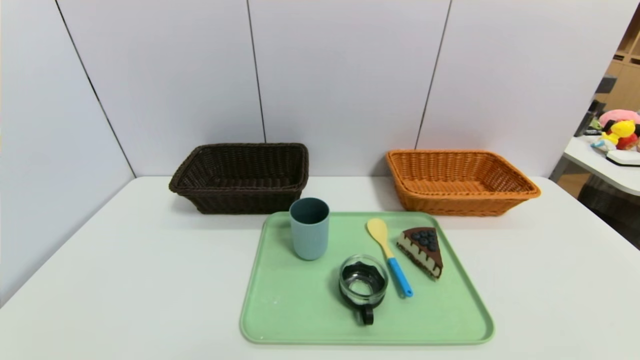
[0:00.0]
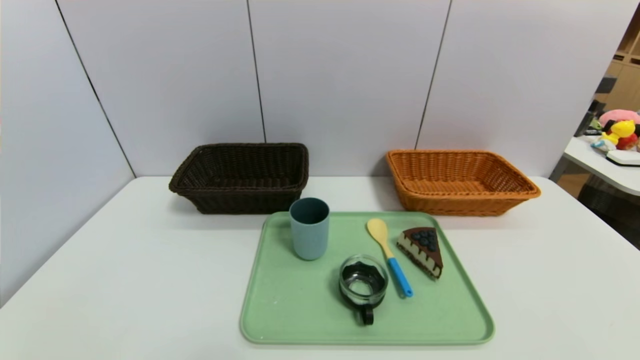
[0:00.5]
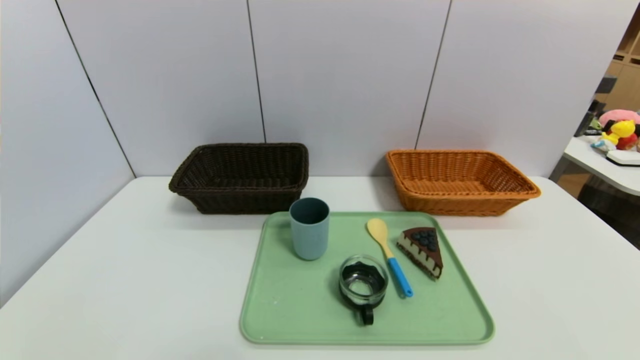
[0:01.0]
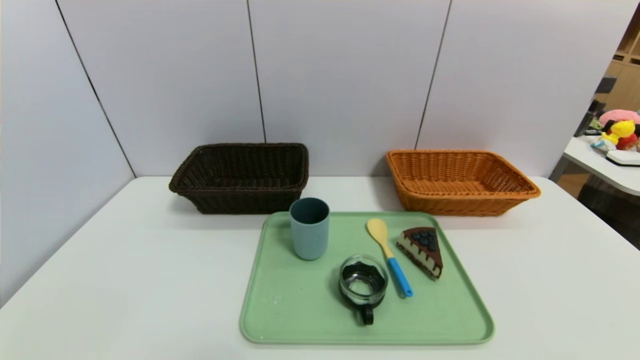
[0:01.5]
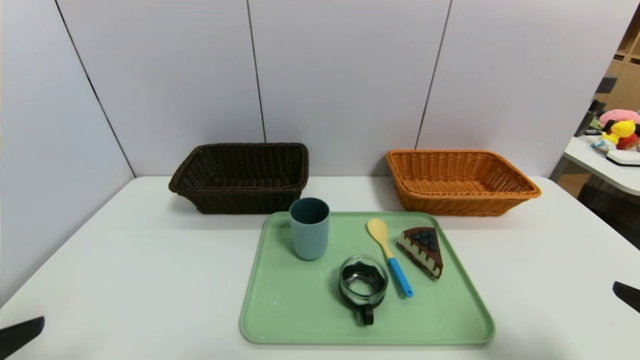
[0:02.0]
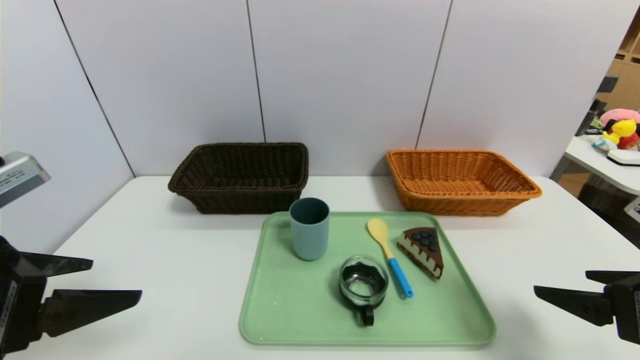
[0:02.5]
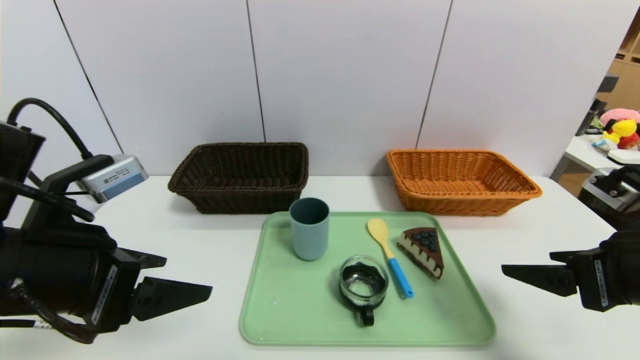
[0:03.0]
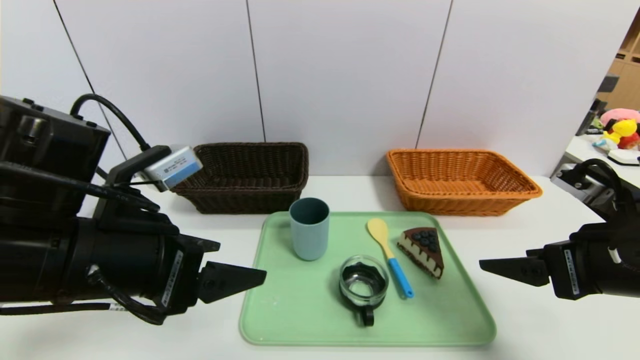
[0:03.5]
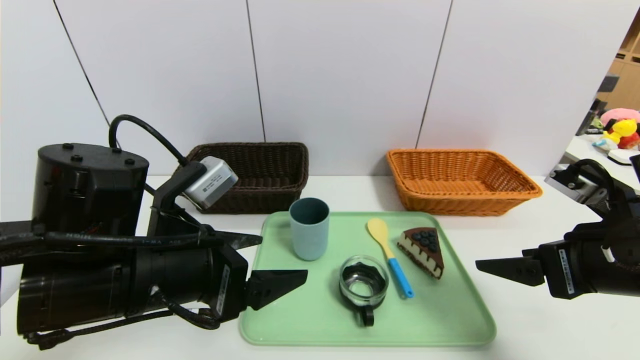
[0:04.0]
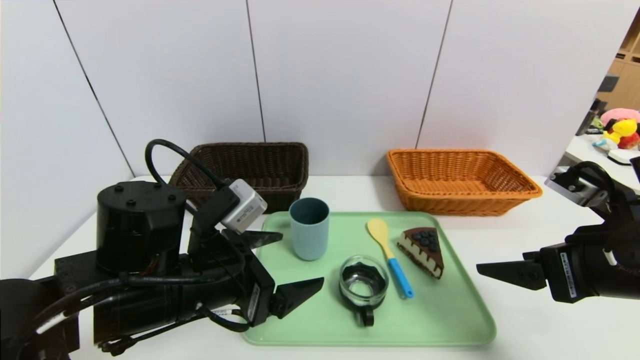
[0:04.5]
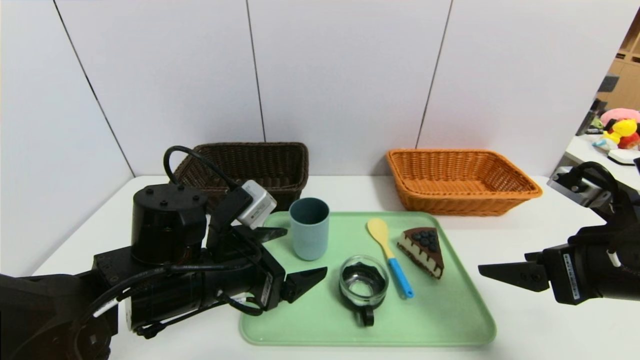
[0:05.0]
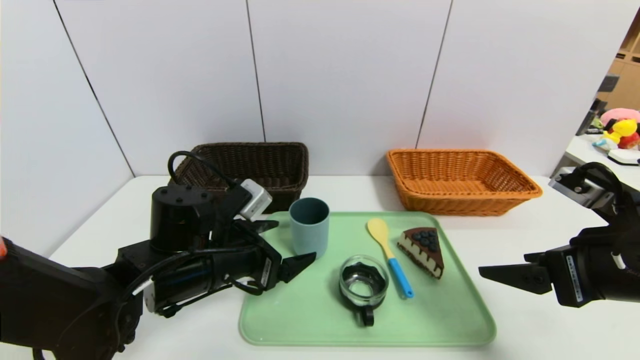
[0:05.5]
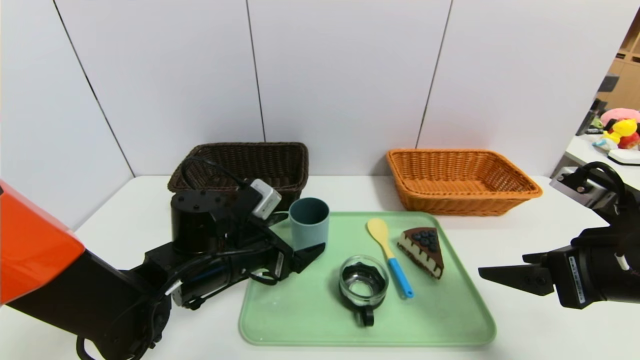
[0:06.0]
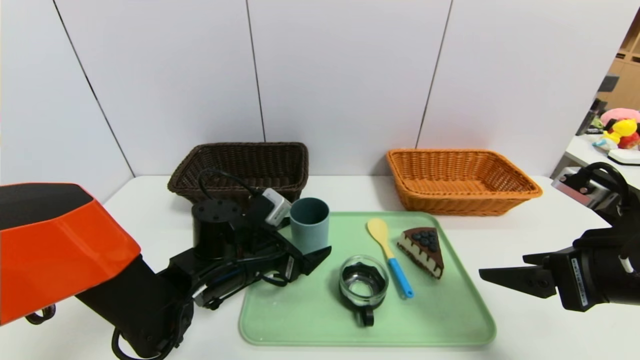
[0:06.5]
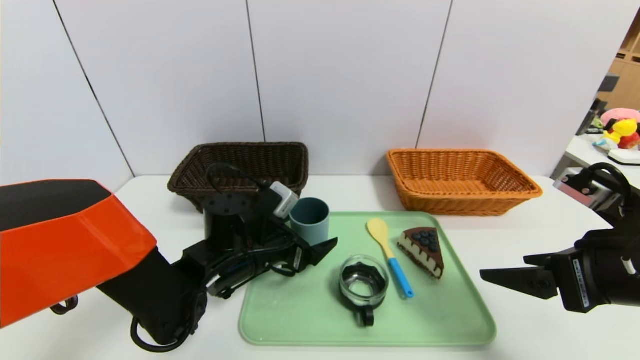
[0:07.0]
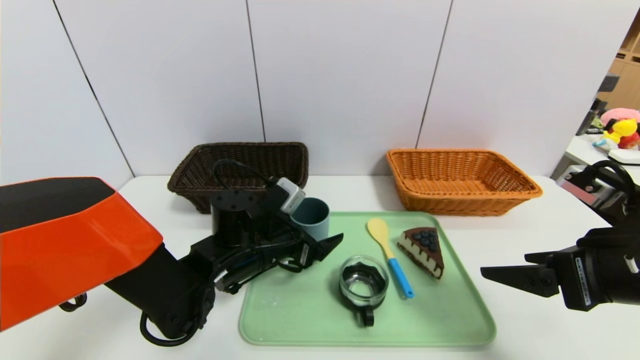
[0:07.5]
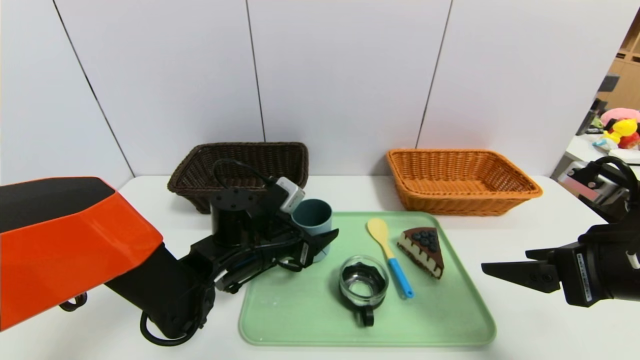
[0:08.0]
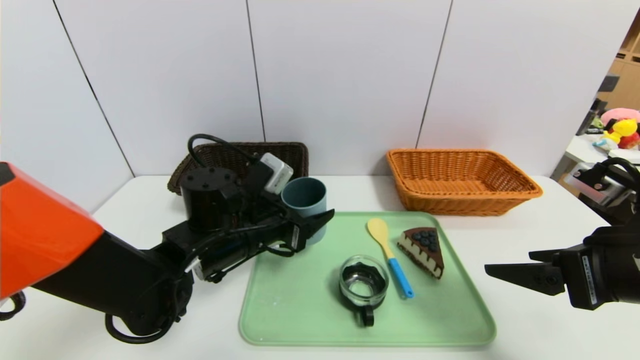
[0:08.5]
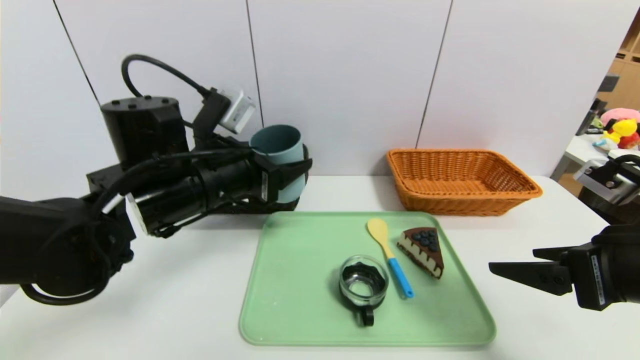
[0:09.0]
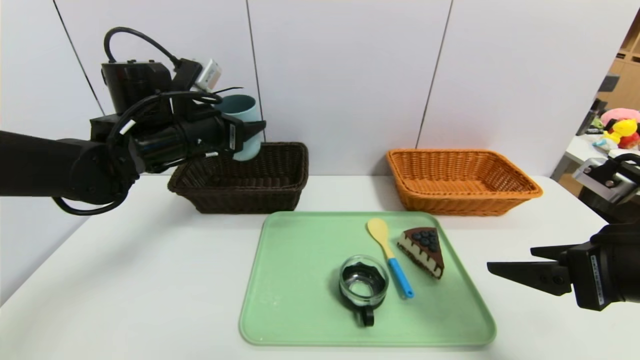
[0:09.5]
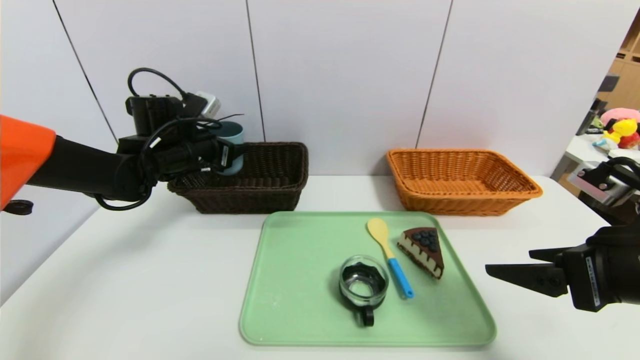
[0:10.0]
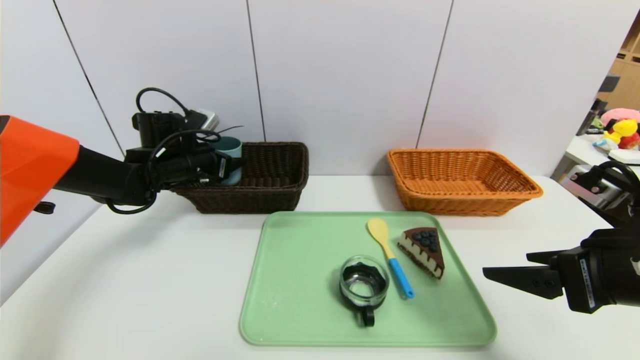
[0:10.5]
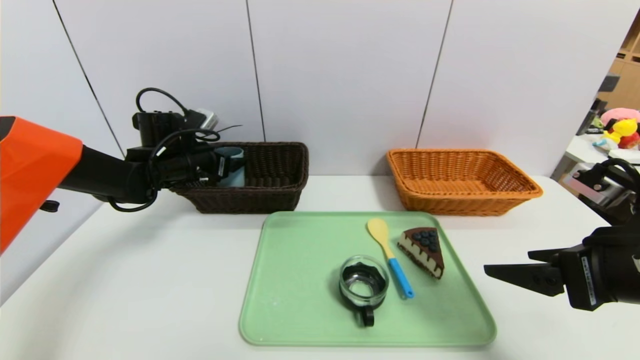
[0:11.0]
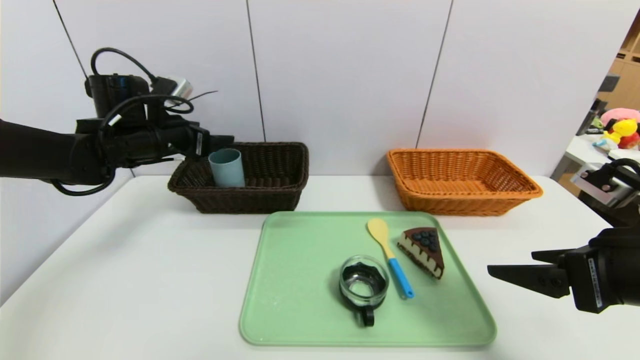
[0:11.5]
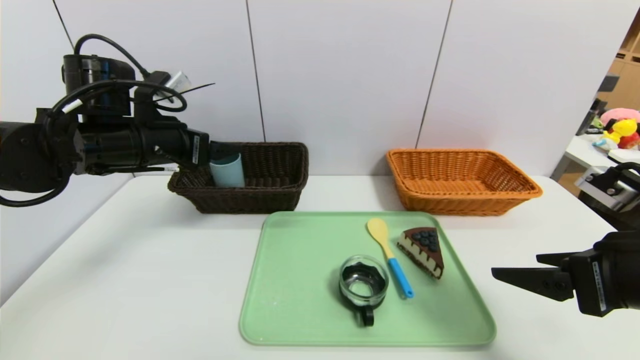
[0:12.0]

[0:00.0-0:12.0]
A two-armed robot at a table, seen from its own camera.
Task of the whole recording: place the food in the right basket with the right gripper, and place the non food items in the left basket with the left gripper.
Step, 0:00.0 to 0:12.0: Grasp the blue cup and put it in the left basket.
0:00.0 to 0:02.0: The right gripper moves upward and forward, about 15 cm. Meanwhile the left gripper shifts approximately 20 cm upward.
0:02.0 to 0:04.0: The right gripper goes approximately 15 cm forward and to the left, while the left gripper shifts some 20 cm to the right and forward.
0:04.0 to 0:06.0: The left gripper moves downward and forward, about 15 cm.
0:06.0 to 0:08.0: The grippers move only a little.
0:08.0 to 0:10.0: The left gripper shifts some 20 cm to the left, forward and upward.
0:10.0 to 0:12.0: The left gripper goes some 10 cm backward and upward.

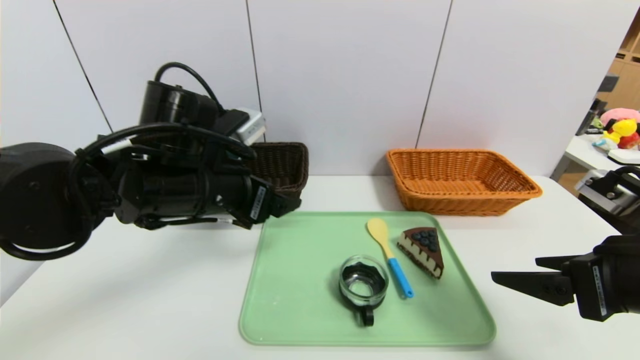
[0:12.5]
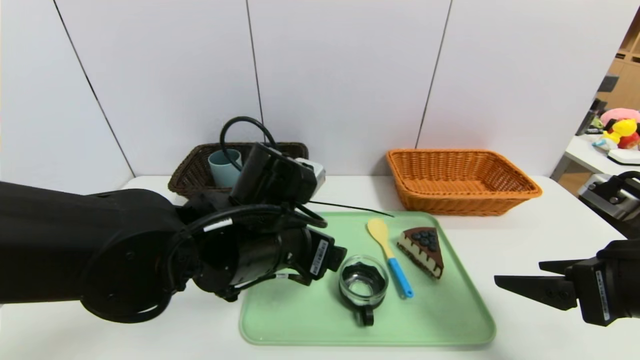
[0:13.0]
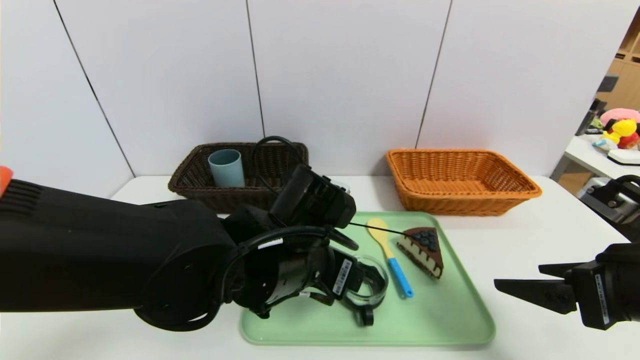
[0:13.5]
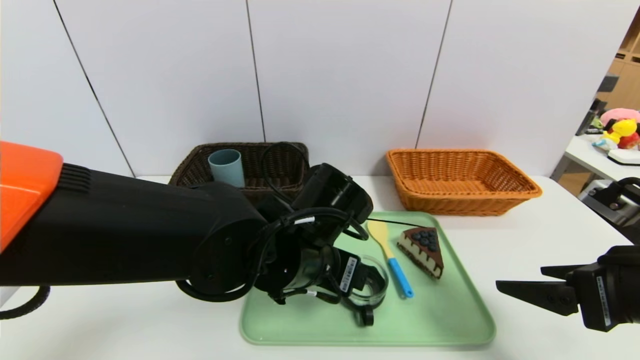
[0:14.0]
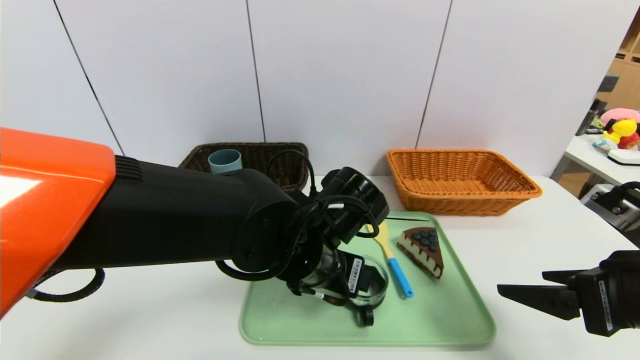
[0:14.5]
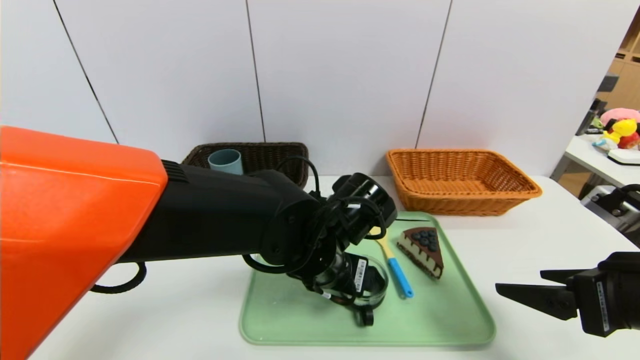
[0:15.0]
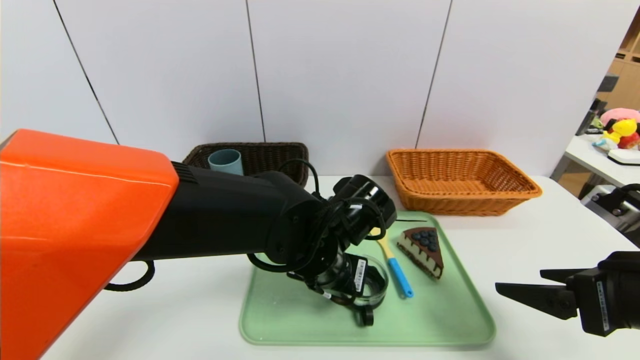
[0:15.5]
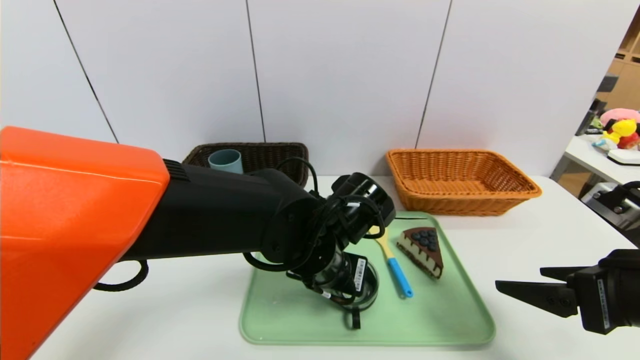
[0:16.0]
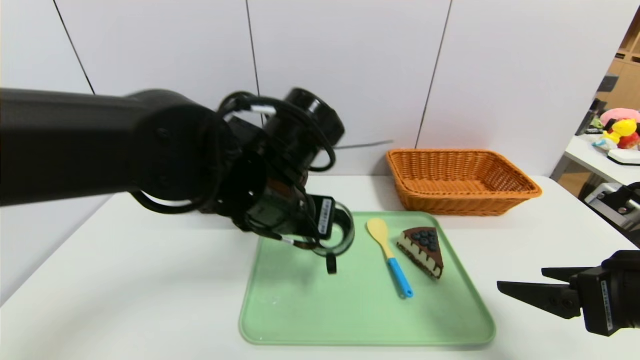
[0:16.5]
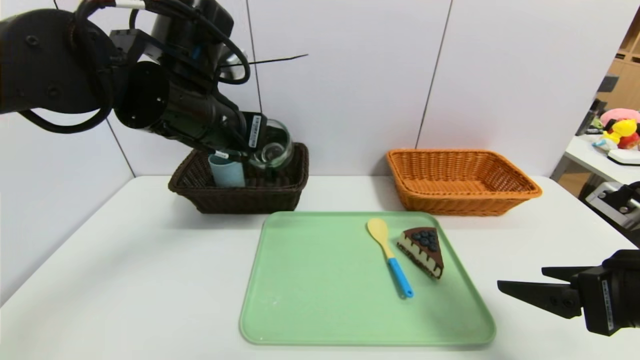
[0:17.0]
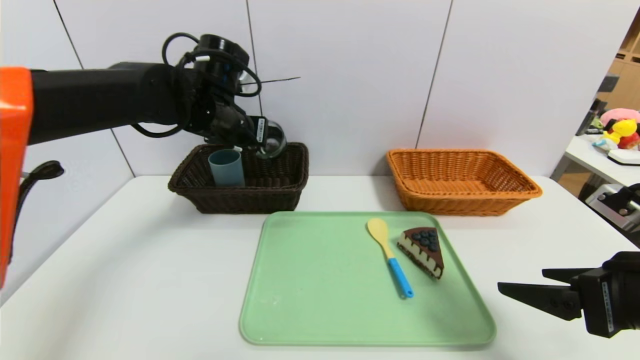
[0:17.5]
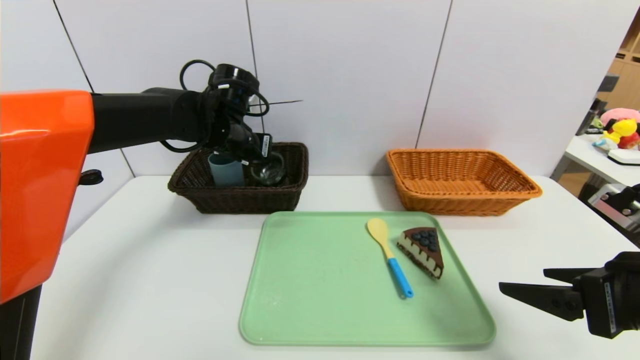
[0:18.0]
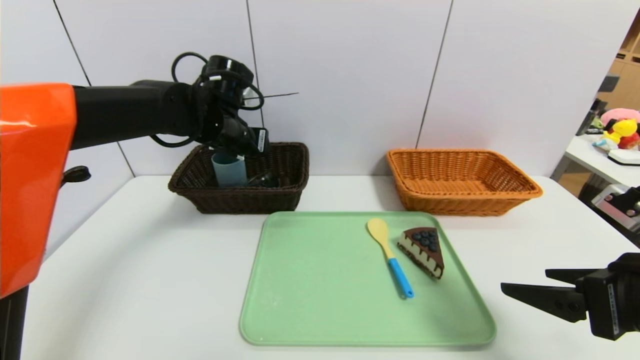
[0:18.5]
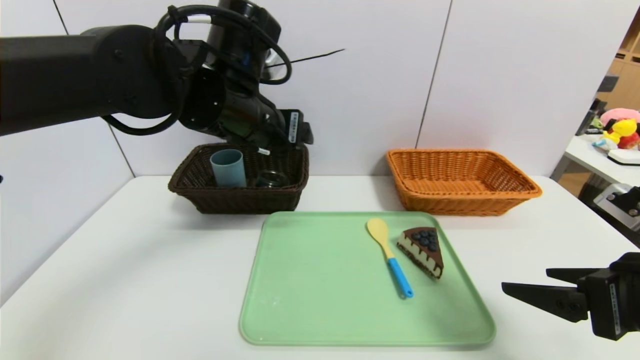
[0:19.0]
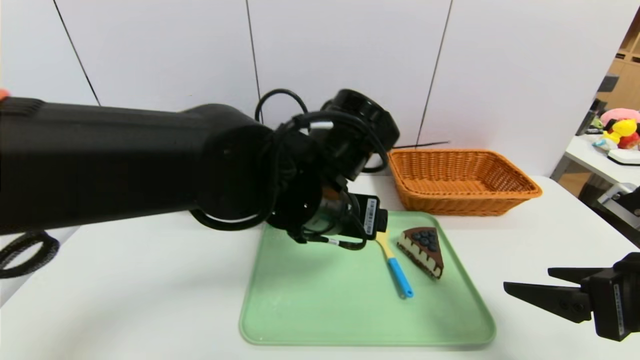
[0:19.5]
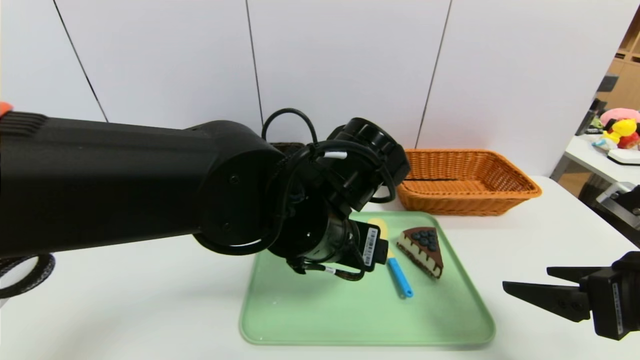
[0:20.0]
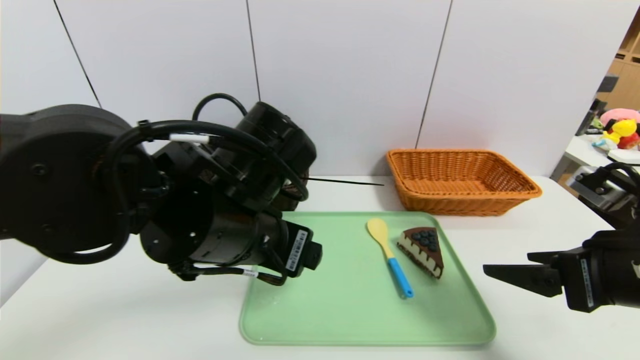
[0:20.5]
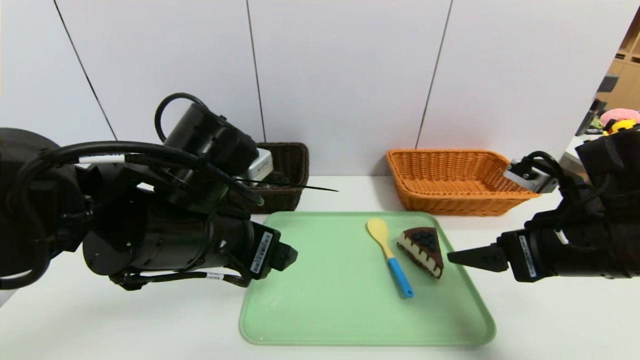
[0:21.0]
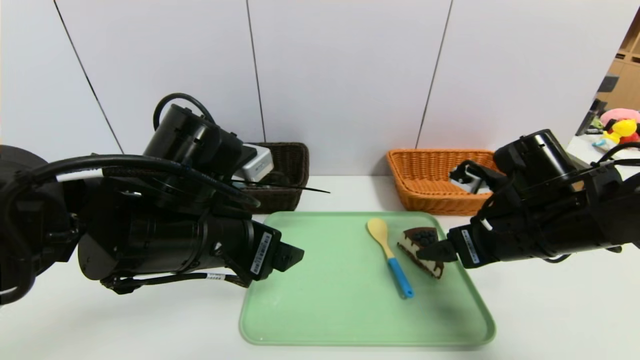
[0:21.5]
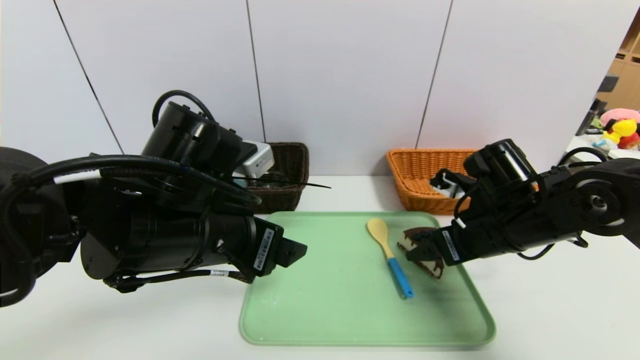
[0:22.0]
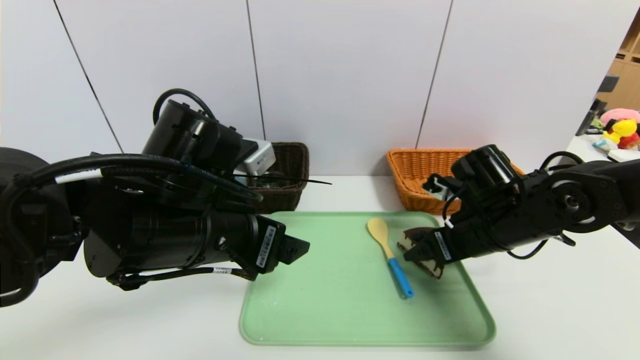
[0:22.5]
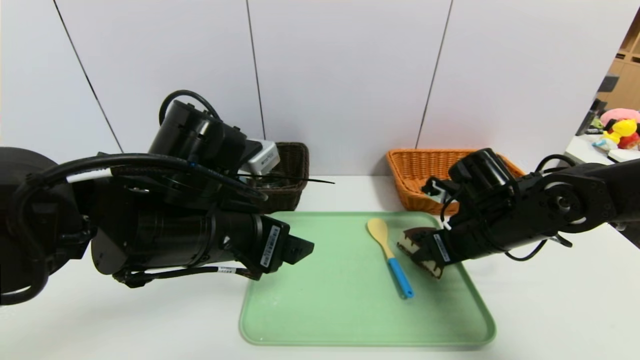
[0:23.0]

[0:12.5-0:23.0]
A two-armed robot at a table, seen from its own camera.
Task of the whole recording: place the food in the right basket with the right gripper, and place the non food items in the left basket with the left gripper.
Step, 0:12.5 to 0:19.0: Grasp the black glass cup and put it in the left basket.
0:12.5 to 0:14.5: The left gripper moves to the right and downward, roughly 15 cm.
0:14.5 to 0:16.5: The left gripper is displaced upward and to the left by some 10 cm, and closes up.
0:16.5 to 0:19.0: The left gripper travels upward by approximately 5 cm, reaches about 15 cm forward, then returns, and opens.
0:19.0 to 0:21.0: The right gripper shifts some 5 cm forward, while the left gripper shifts some 10 cm backward and downward, and travels to the right and back again, roughly 10 cm each way.
0:21.0 to 0:23.0: The right gripper is displaced forward and downward by some 10 cm, and closes.
